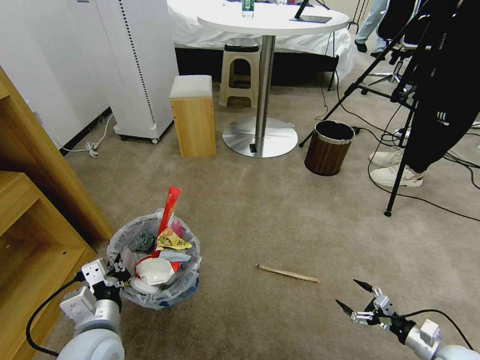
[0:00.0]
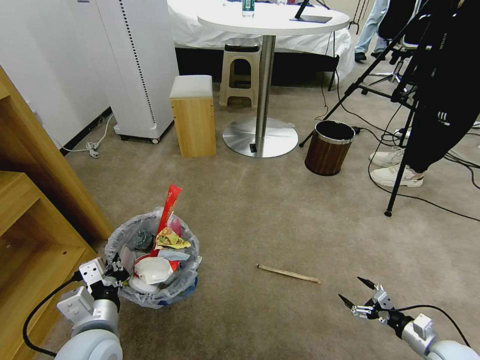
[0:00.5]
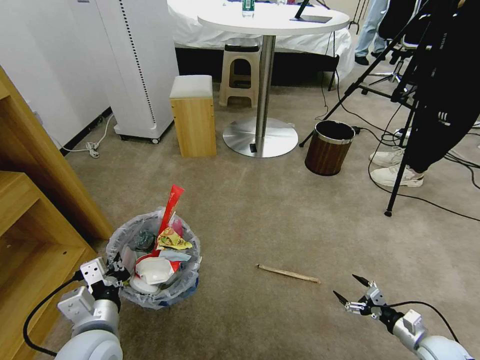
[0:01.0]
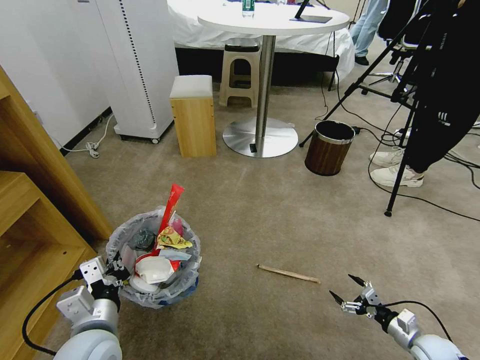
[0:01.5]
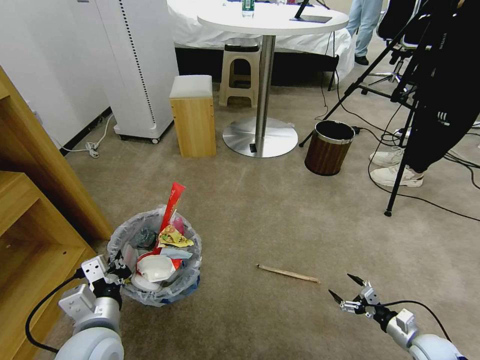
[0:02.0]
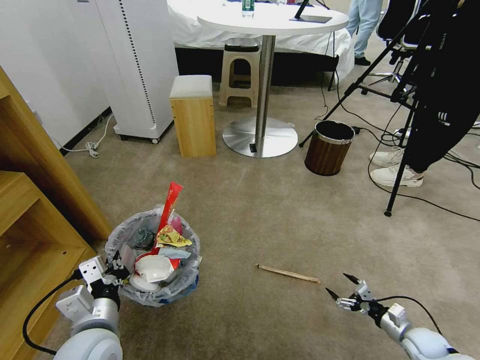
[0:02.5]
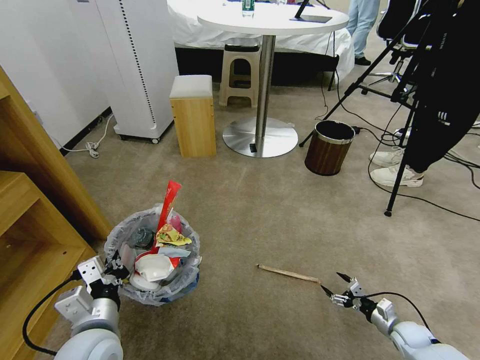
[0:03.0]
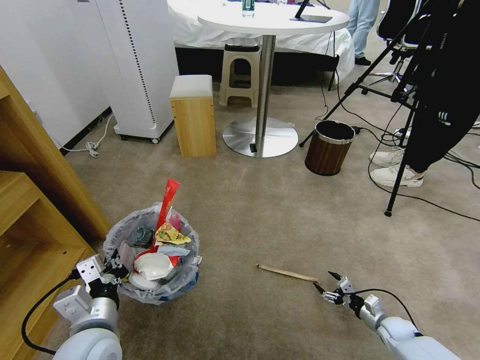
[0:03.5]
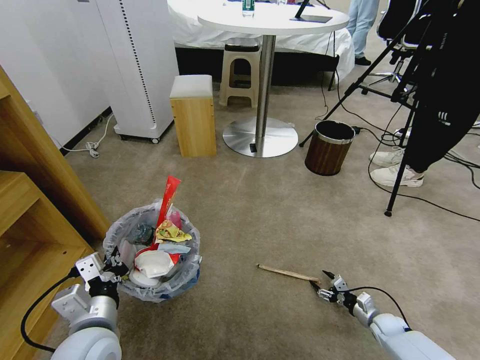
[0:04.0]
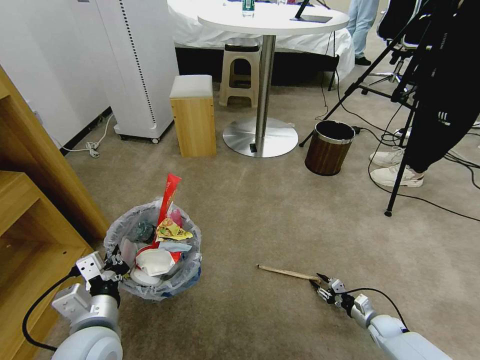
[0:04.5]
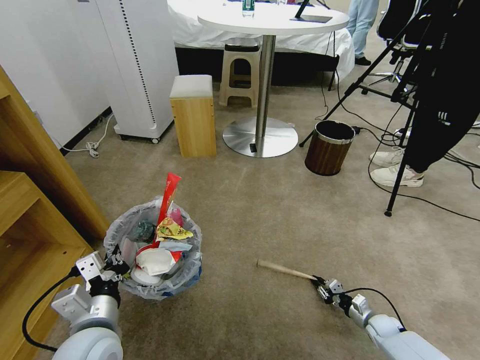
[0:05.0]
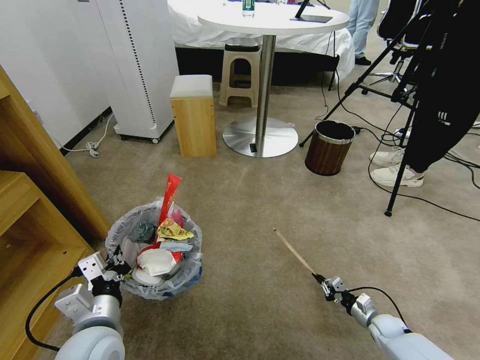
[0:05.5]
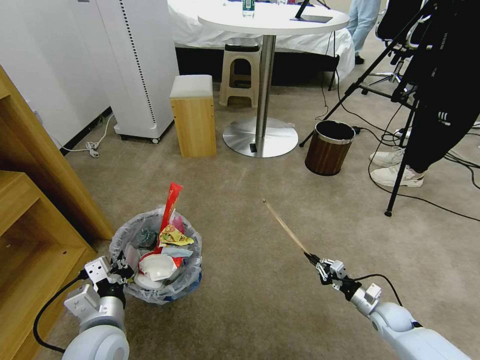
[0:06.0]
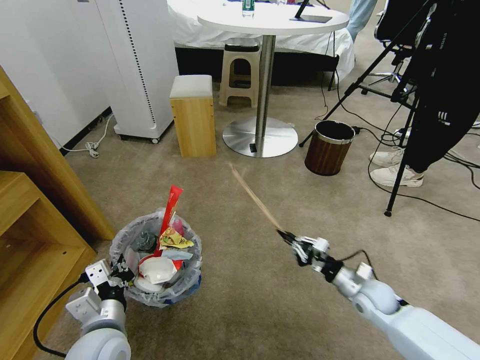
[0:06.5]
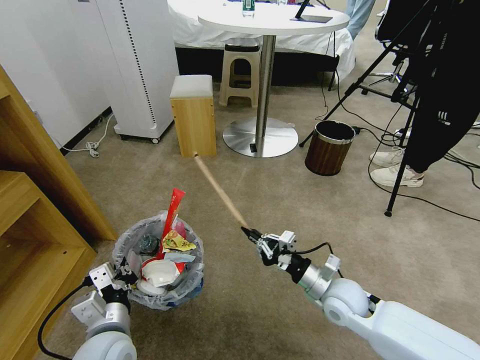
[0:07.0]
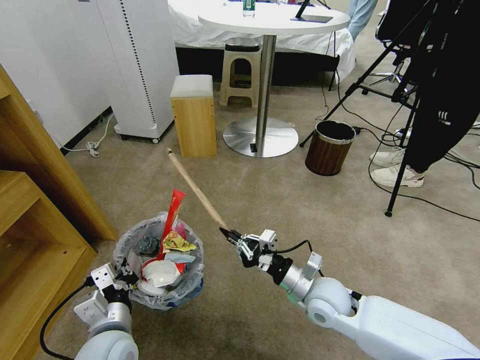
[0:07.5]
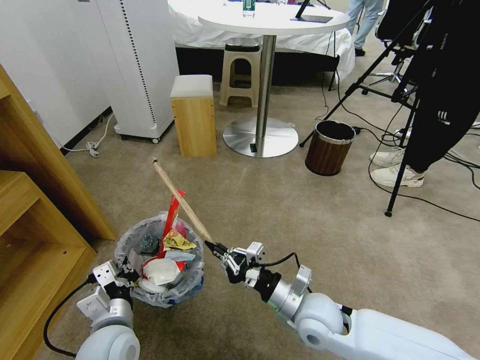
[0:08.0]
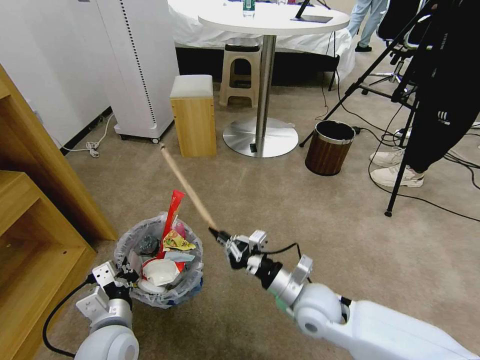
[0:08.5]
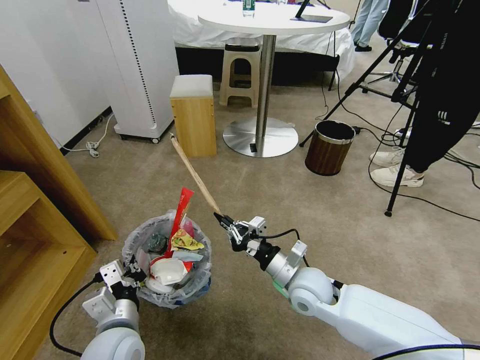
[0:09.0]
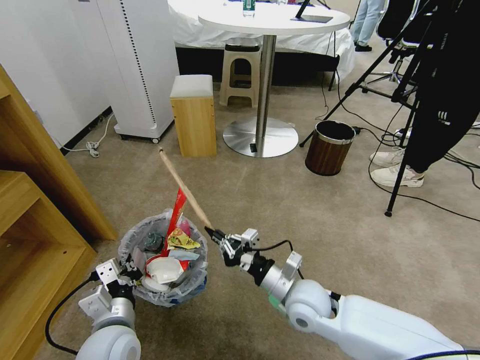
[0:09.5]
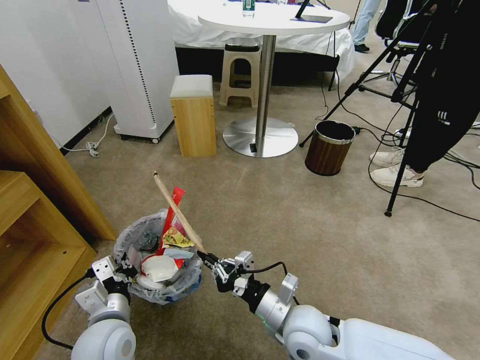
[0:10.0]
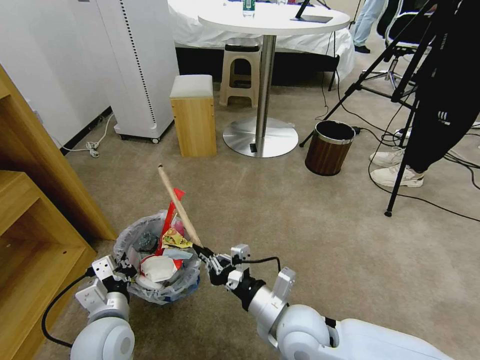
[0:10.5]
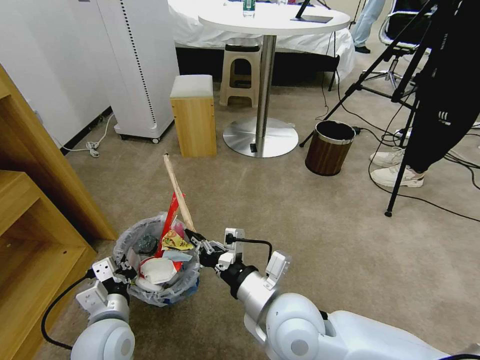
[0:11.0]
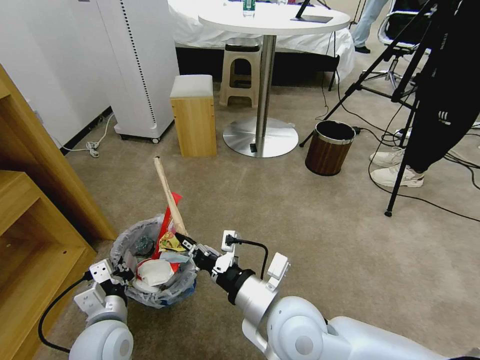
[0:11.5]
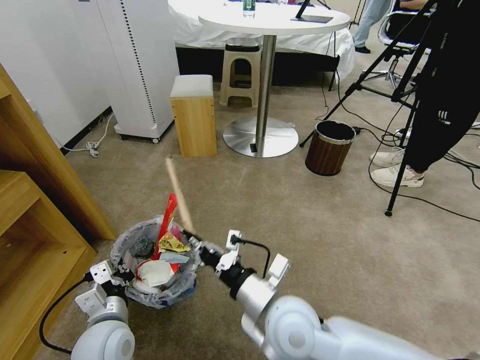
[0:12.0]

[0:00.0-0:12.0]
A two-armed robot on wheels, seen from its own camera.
Task of the whole recording: Pick up the trash bin and place the garbage on the floor into it.
0:00.0 to 0:02.0: The right gripper shifts by about 5 cm.
0:02.0 to 0:04.0: The right gripper heads downward and forward, covering approximately 10 cm.
0:04.0 to 0:06.0: The right gripper heads upward, covering about 10 cm, and closes.
0:06.0 to 0:08.0: The right gripper moves to the left and upward, about 30 cm.
0:08.0 to 0:10.0: The grippers make only small movements.
0:10.0 to 0:12.0: The right gripper heads upward, covering some 10 cm.

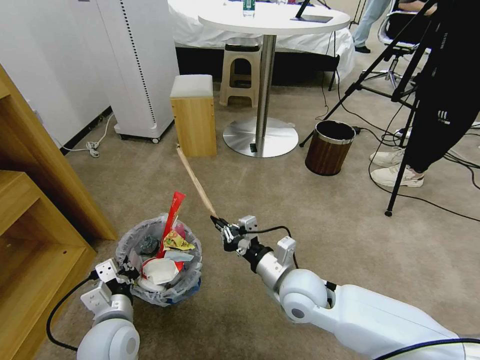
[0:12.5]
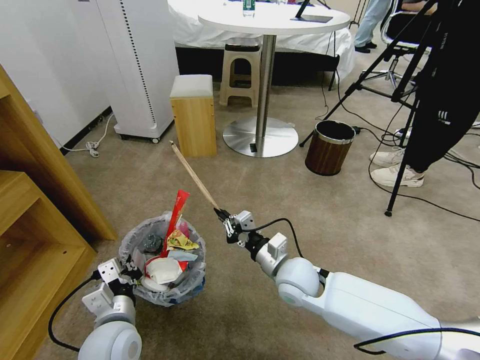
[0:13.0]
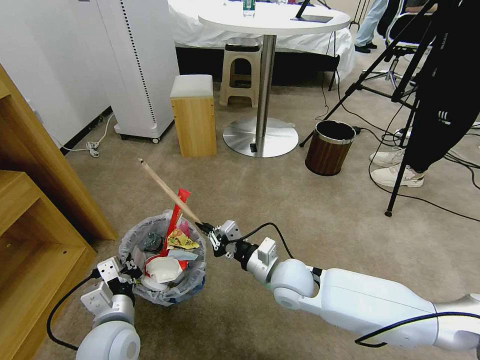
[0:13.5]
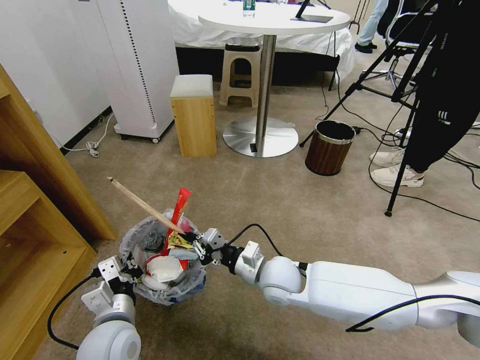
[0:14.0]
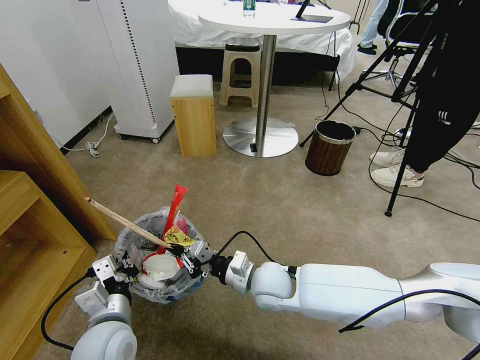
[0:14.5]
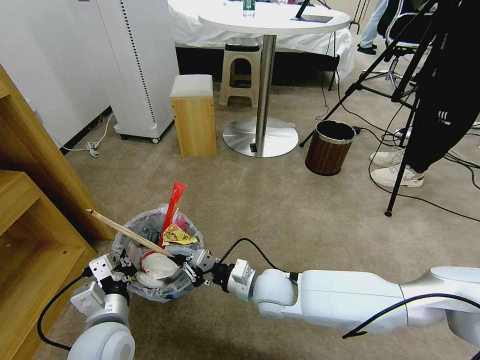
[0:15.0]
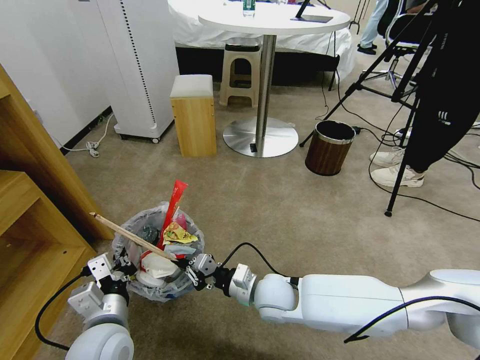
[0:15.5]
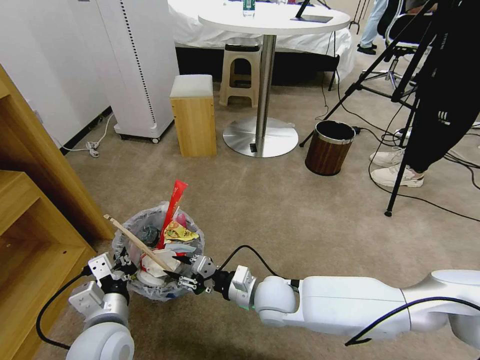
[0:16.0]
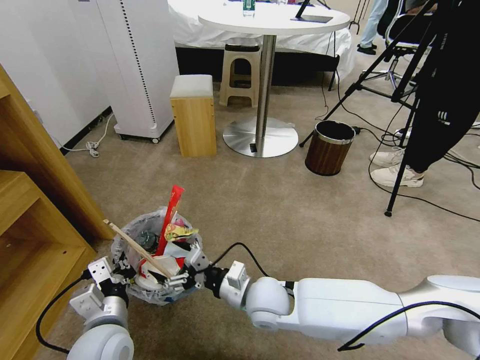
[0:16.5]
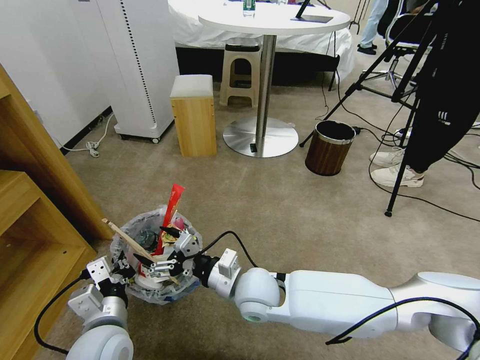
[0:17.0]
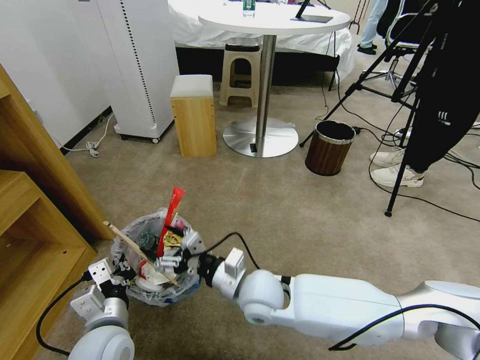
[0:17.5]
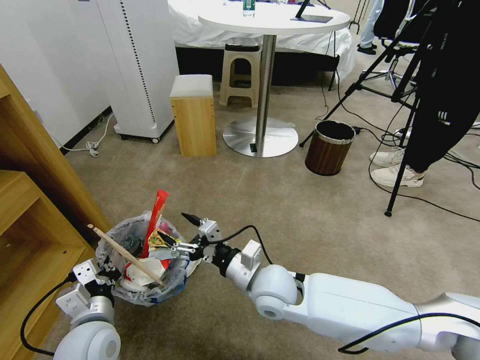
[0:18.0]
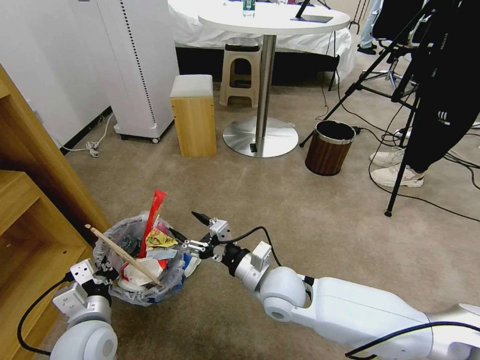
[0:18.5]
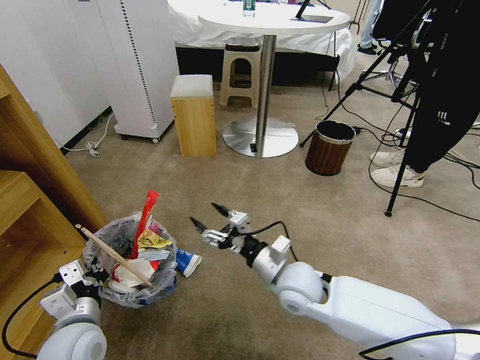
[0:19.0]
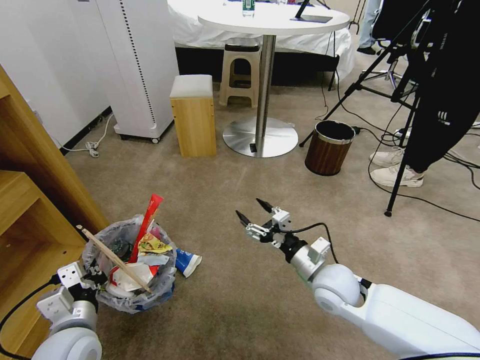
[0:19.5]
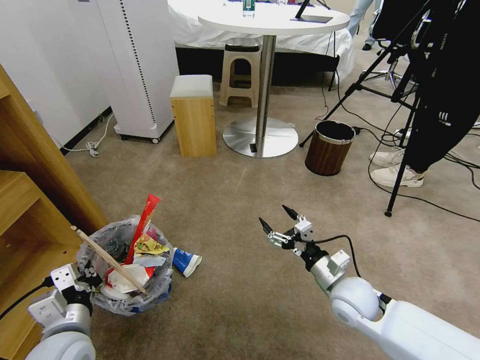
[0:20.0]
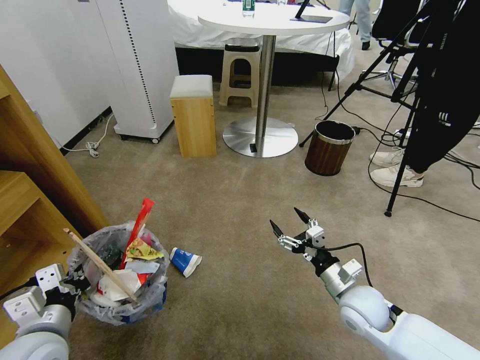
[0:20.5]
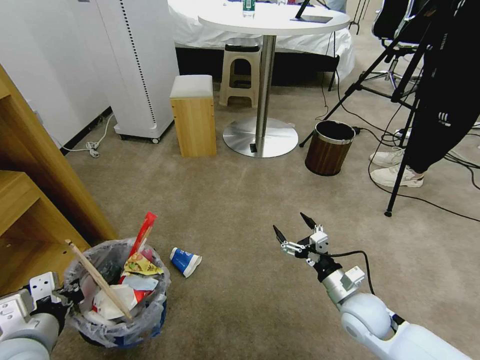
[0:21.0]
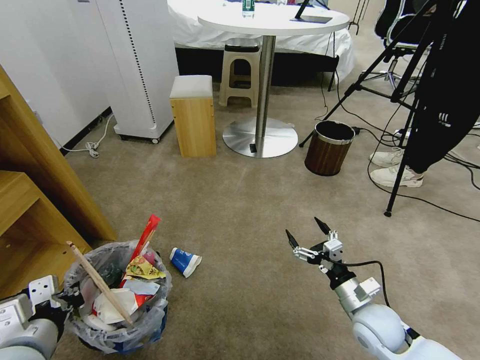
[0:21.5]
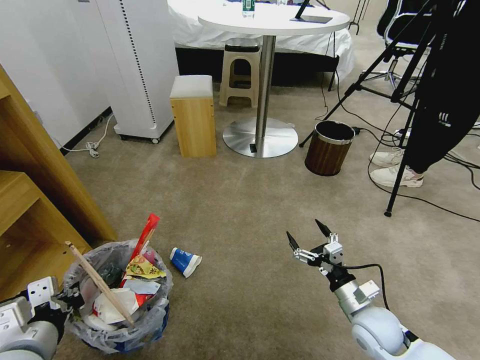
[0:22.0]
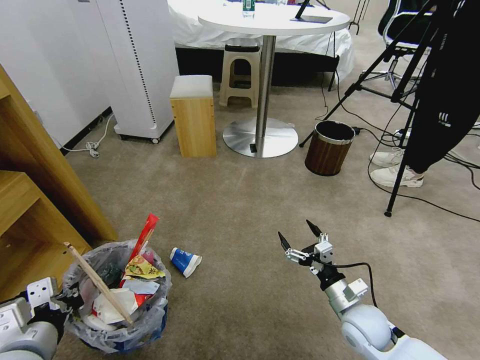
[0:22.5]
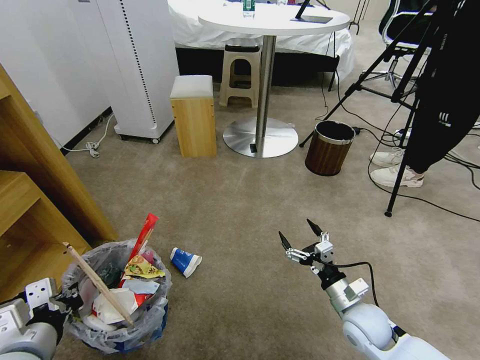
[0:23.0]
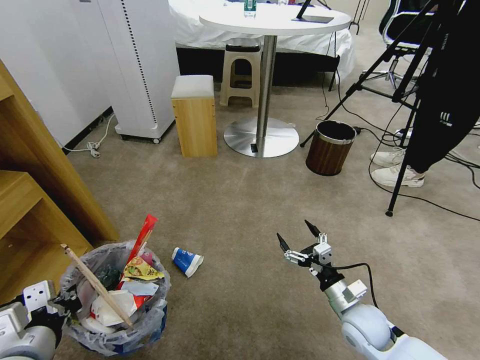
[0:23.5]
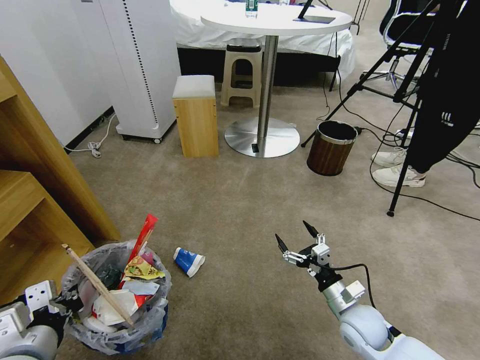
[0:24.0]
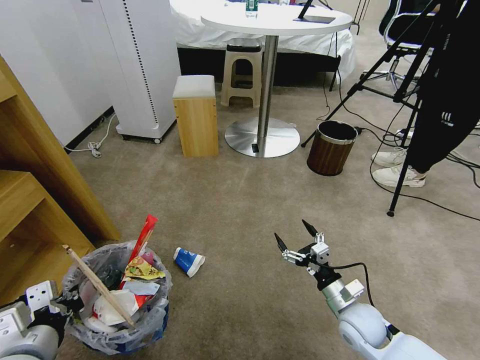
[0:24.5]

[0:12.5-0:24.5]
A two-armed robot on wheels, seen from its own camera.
Task of the whole recording: Pick up the trash bin and place the garbage on the floor into it.
0:12.5 to 0:14.5: The right gripper travels to the left by roughly 5 cm.
0:14.5 to 0:16.5: The right gripper opens up.
0:16.5 to 0:18.5: There are only small adjustments of the grippers.
0:18.5 to 0:20.5: The right gripper goes some 20 cm to the right. The left gripper is displaced upward by some 5 cm.
0:20.5 to 0:22.5: The grippers make only small movements.
0:22.5 to 0:24.5: Both grippers stay put.

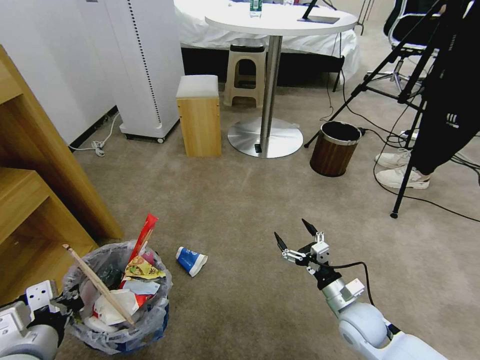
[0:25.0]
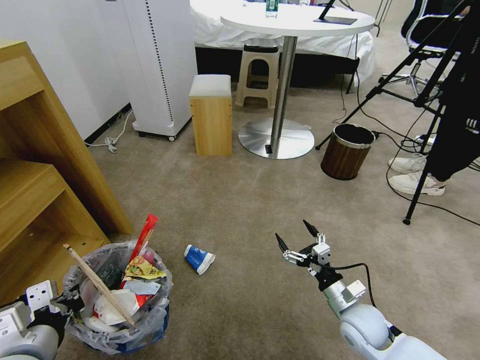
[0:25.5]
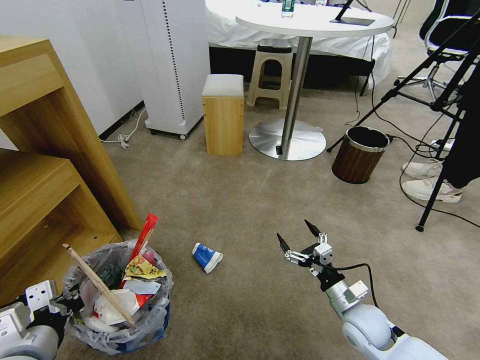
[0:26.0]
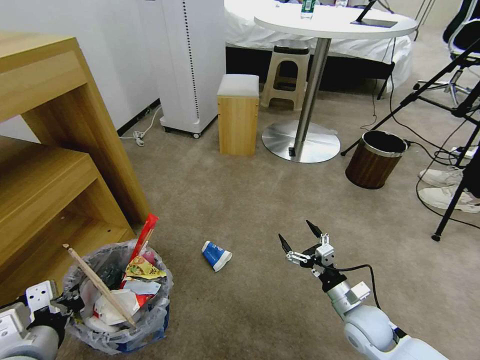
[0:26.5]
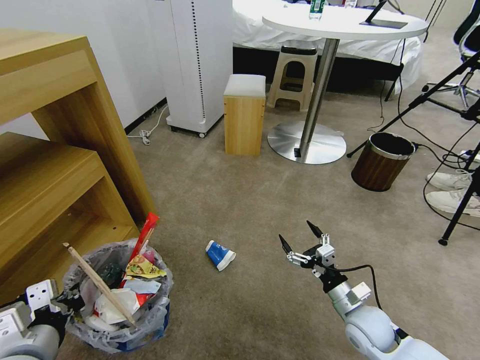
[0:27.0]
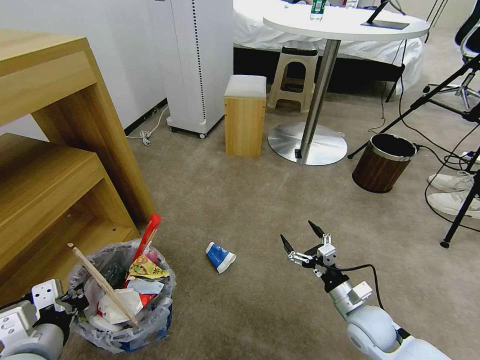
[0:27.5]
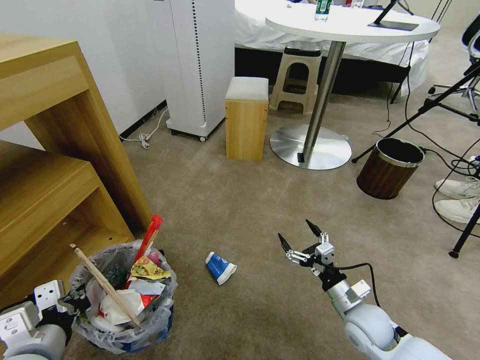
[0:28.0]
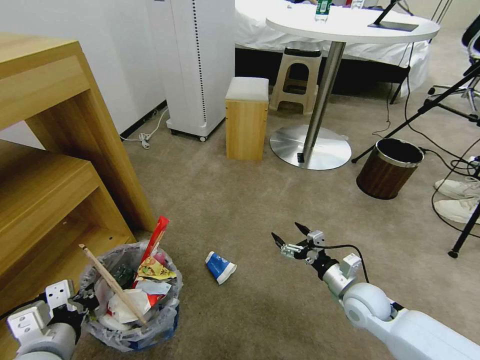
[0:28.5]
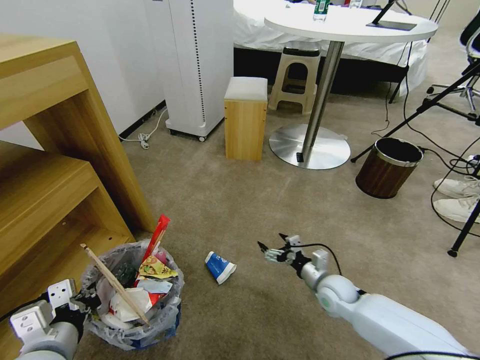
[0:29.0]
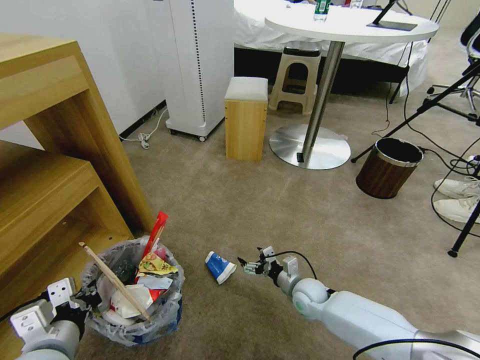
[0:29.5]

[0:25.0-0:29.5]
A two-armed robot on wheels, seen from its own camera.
Task of the whole recording: Pick up the trash bin and place the garbage on the floor into it.
0:27.0 to 0:29.5: The right gripper moves forward, to the left and downward, some 15 cm.
